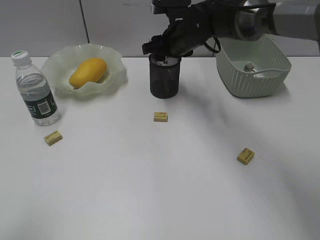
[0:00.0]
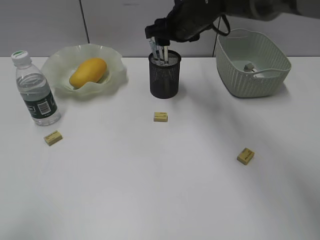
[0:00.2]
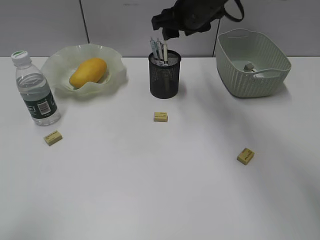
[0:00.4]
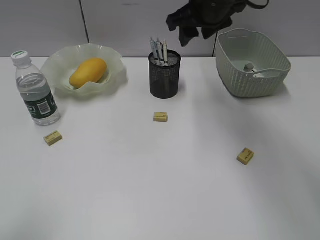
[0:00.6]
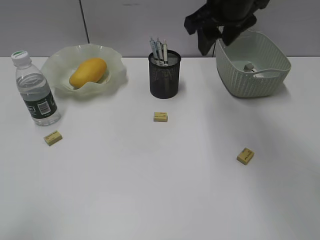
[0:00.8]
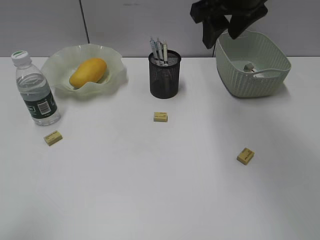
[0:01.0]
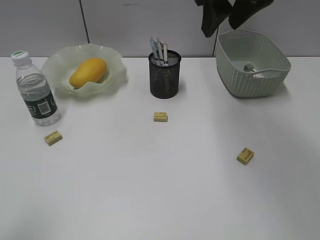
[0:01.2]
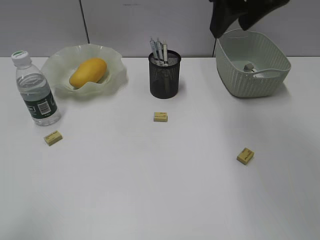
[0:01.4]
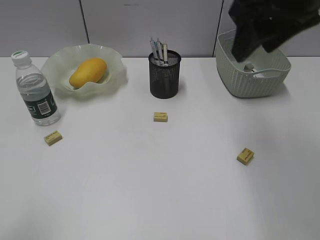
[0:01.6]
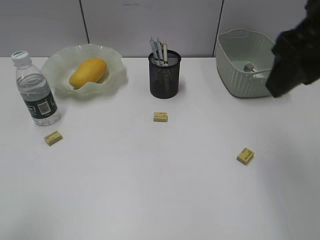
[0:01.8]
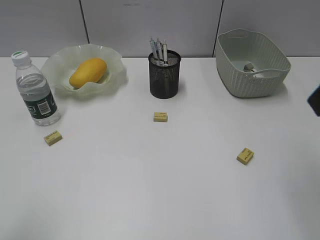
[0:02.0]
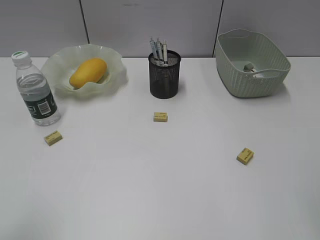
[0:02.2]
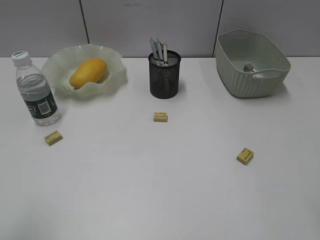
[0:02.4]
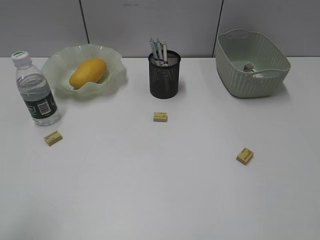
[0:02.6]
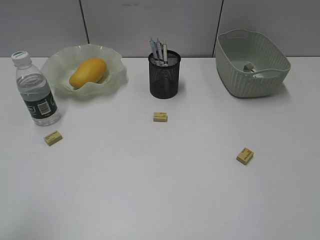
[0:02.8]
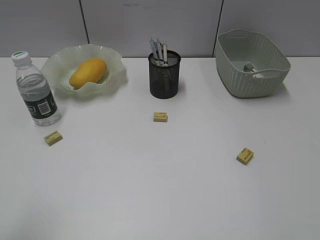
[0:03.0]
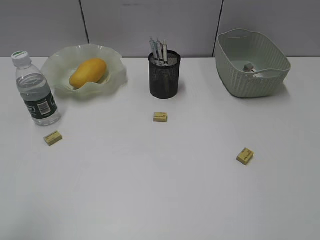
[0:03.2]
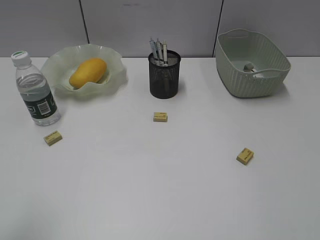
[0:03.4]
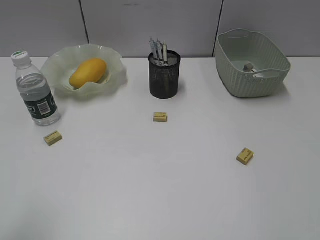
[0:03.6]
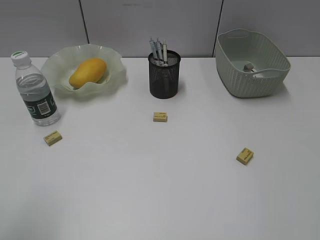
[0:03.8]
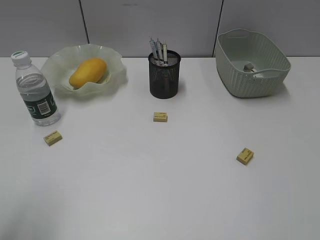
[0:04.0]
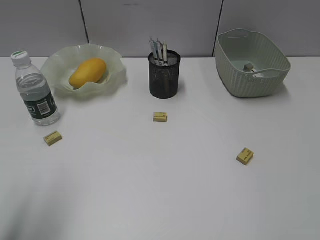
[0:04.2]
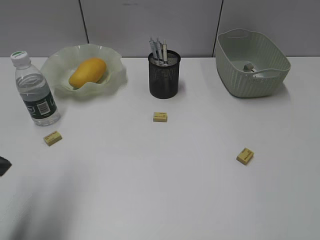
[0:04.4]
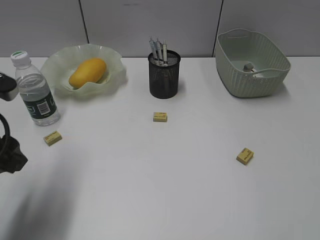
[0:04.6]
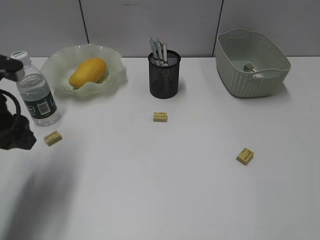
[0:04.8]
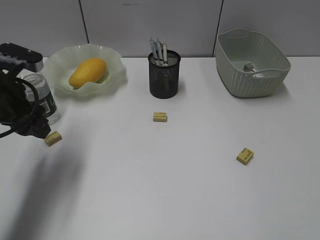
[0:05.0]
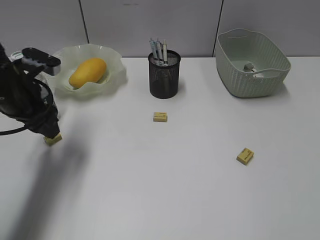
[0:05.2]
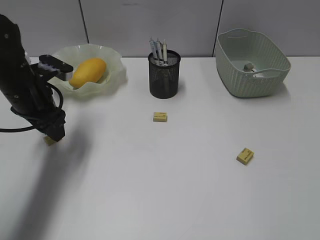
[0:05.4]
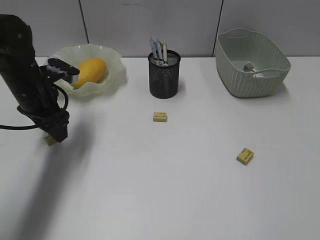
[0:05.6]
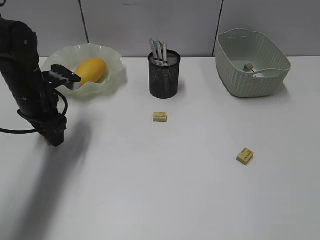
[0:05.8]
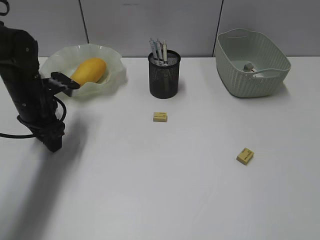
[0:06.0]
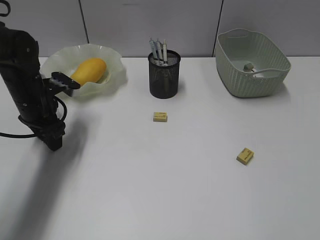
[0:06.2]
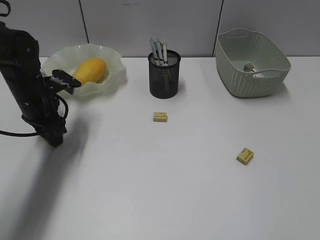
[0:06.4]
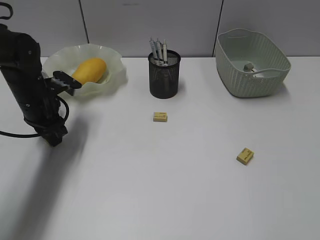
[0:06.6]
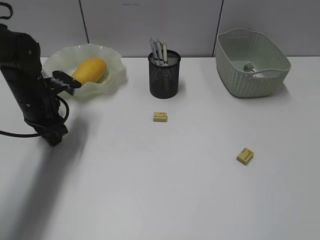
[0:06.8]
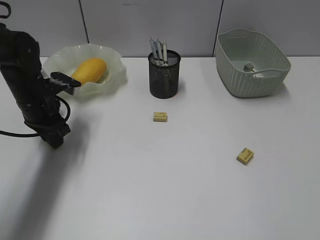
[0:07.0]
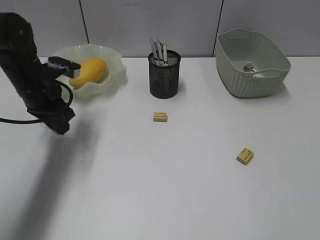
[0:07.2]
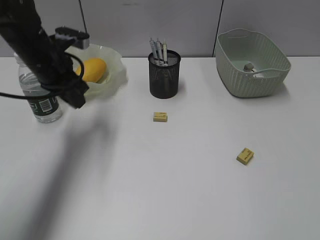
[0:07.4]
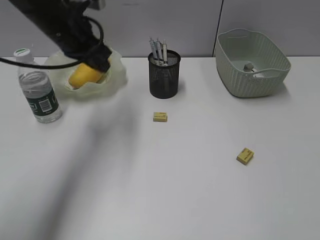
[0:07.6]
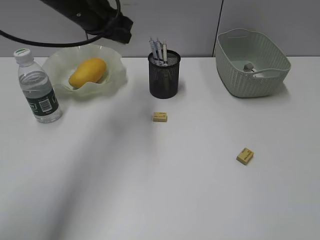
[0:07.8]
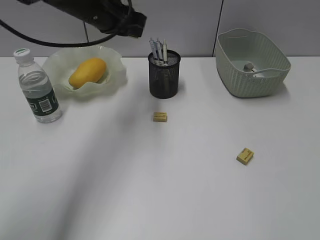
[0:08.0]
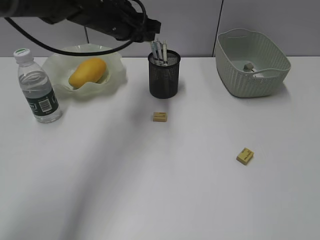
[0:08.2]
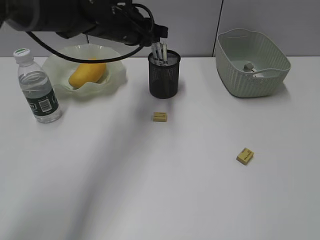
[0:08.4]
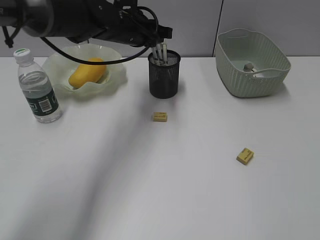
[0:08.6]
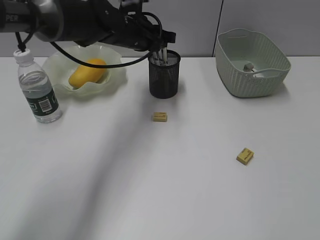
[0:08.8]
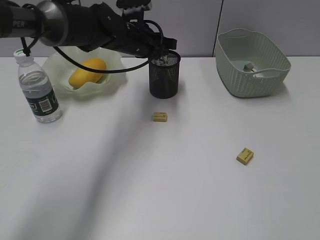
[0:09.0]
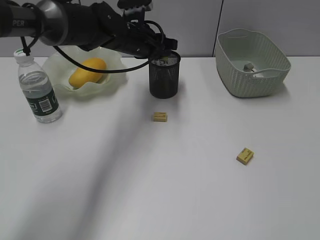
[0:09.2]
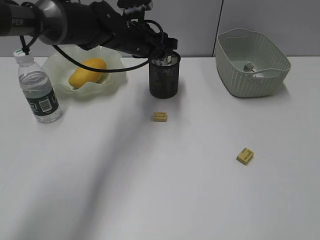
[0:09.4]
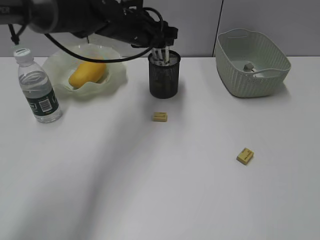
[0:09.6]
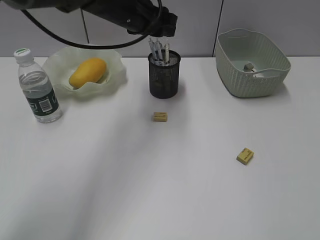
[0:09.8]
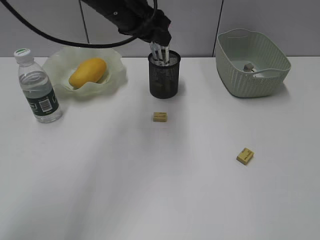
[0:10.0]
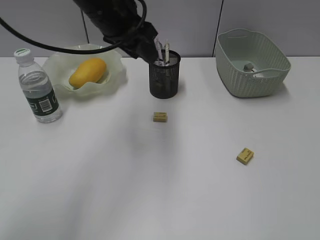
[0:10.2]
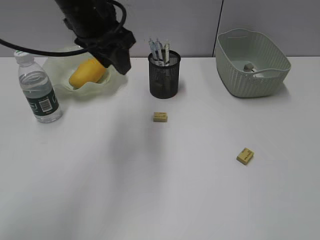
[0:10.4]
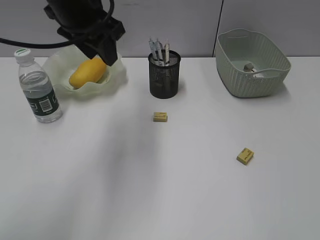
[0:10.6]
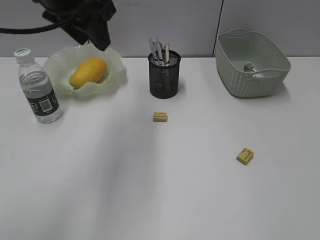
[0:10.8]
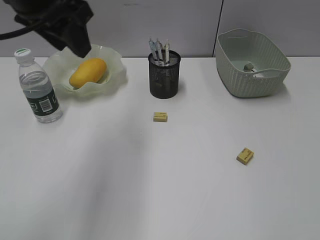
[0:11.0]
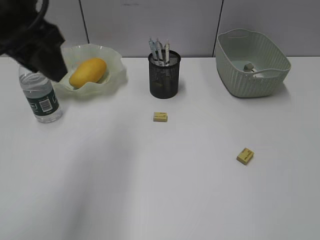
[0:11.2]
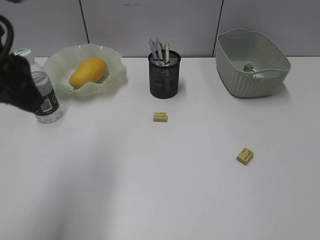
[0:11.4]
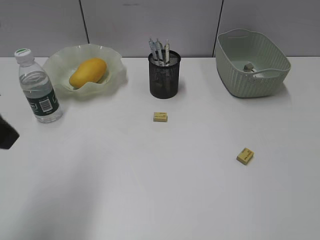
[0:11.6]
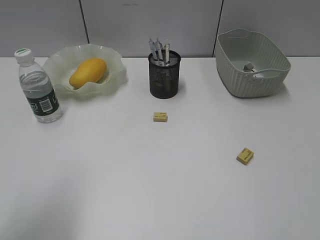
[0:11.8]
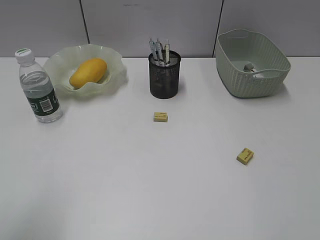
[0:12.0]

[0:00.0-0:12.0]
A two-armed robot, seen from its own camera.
Step, 0:00.0 to 0:06.8: Grasp the eraser with left gripper.
Step, 0:07.0 to 0:09.4: Place the eraser in pen holder with left gripper.
0:00.0 to 0:01.6: The right gripper goes some 30 cm backward, upward and to the right.
0:01.6 to 0:03.0: The right gripper heads backward and to the right, covering some 30 cm.
0:03.0 to 0:04.4: The left gripper goes some 10 cm forward.
0:04.4 to 0:06.0: The left gripper shifts about 25 cm forward and downward.
0:06.0 to 0:07.6: The left gripper shifts approximately 15 cm upward and to the right, and closes its fingers.
0:07.6 to 0:09.0: The left gripper moves to the right, downward and forward, some 15 cm.
0:09.0 to 0:10.4: The left gripper heads upward, backward and to the left, covering about 15 cm, and opens.
0:10.4 to 0:12.0: The left gripper shifts some 30 cm backward and to the left.

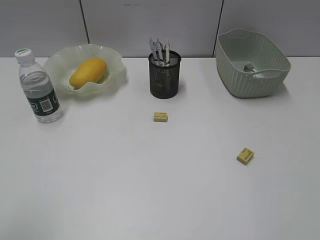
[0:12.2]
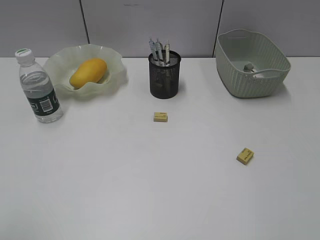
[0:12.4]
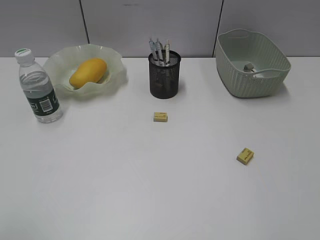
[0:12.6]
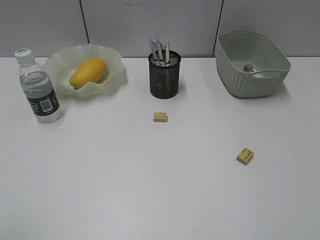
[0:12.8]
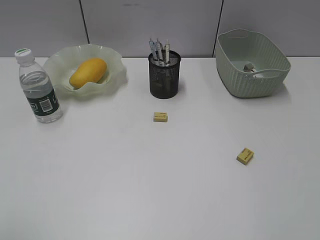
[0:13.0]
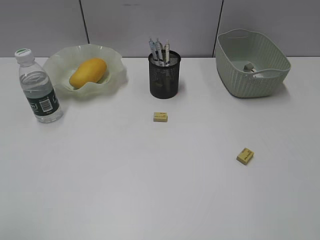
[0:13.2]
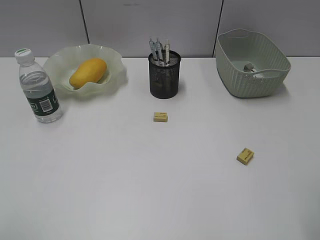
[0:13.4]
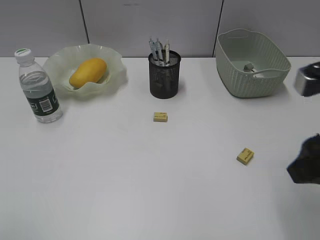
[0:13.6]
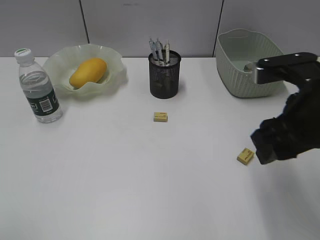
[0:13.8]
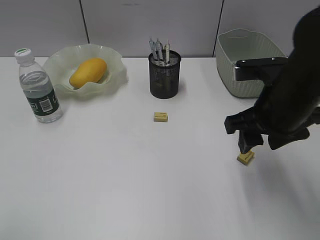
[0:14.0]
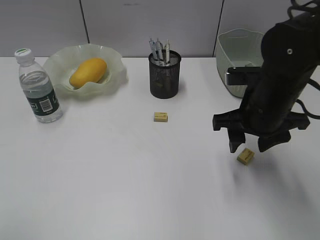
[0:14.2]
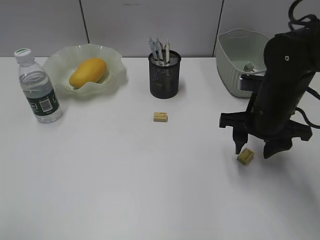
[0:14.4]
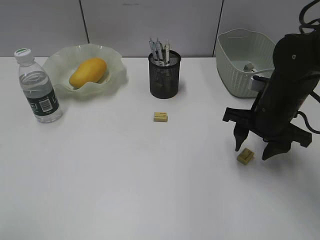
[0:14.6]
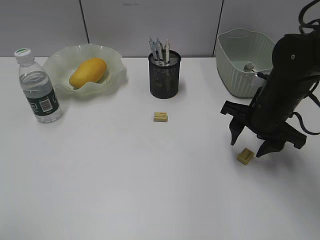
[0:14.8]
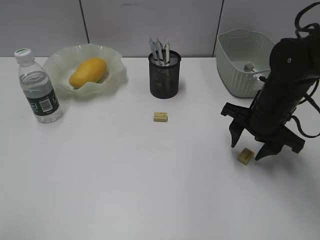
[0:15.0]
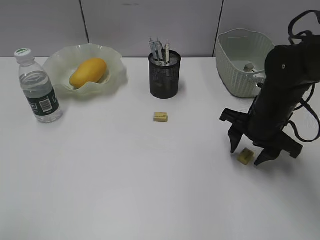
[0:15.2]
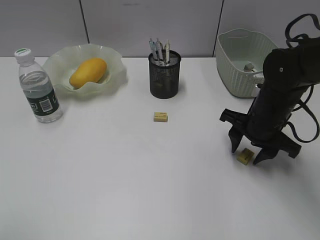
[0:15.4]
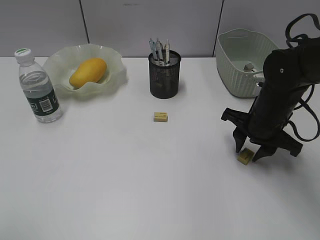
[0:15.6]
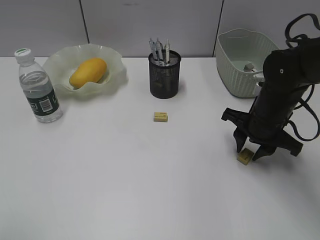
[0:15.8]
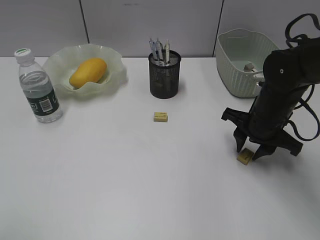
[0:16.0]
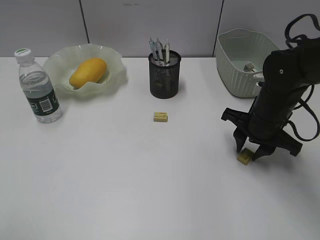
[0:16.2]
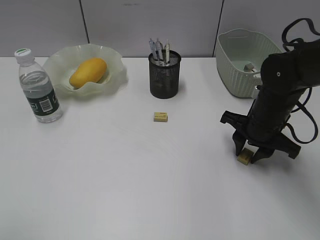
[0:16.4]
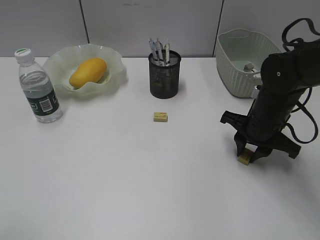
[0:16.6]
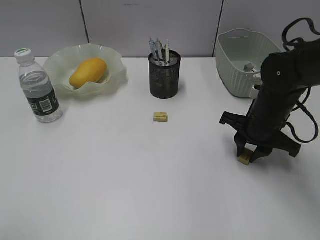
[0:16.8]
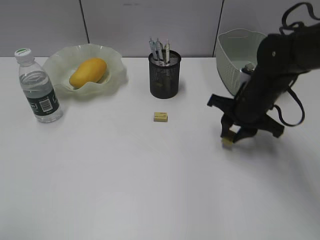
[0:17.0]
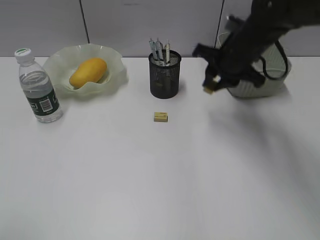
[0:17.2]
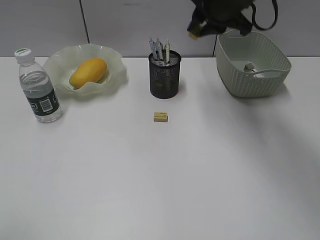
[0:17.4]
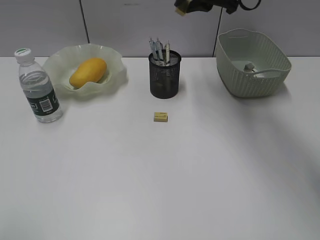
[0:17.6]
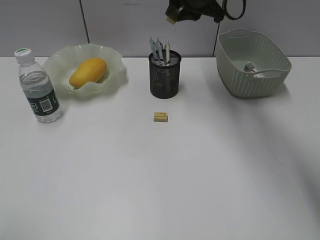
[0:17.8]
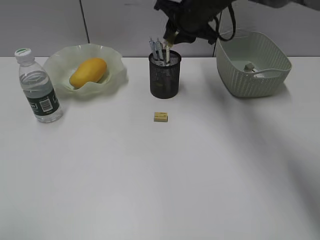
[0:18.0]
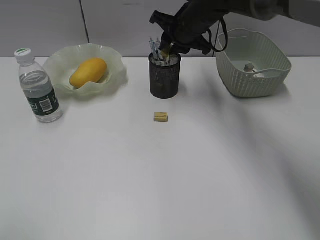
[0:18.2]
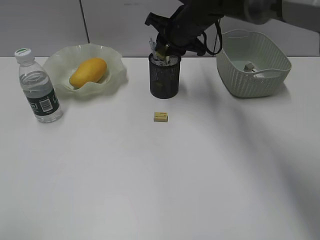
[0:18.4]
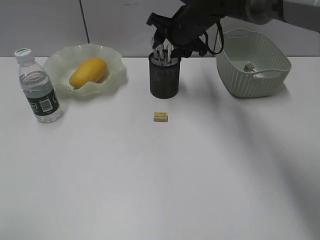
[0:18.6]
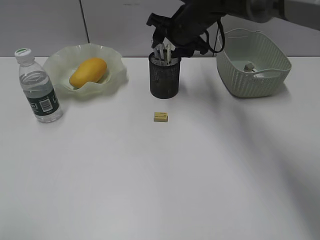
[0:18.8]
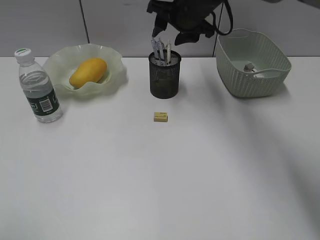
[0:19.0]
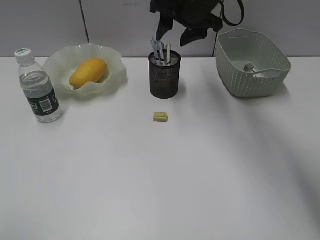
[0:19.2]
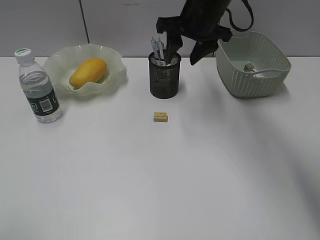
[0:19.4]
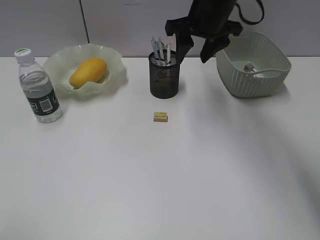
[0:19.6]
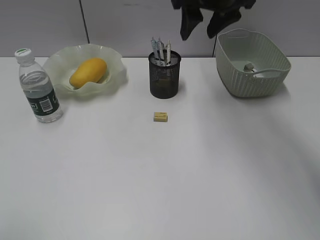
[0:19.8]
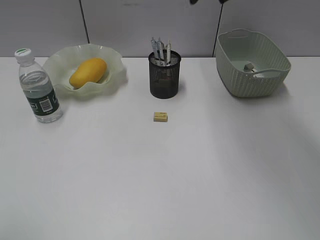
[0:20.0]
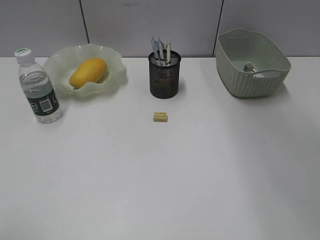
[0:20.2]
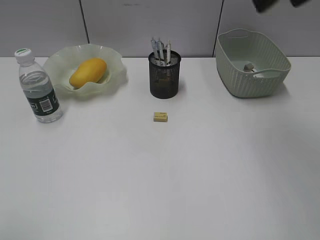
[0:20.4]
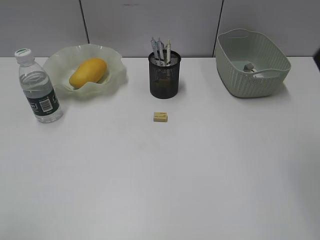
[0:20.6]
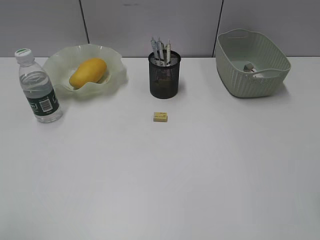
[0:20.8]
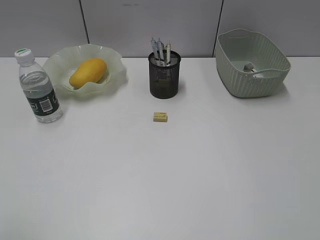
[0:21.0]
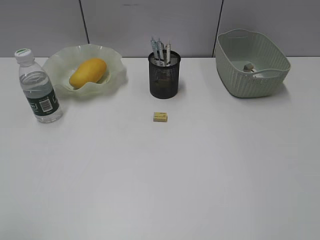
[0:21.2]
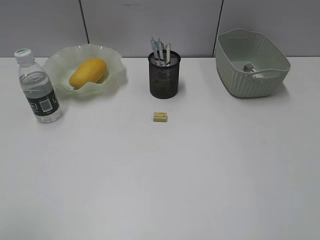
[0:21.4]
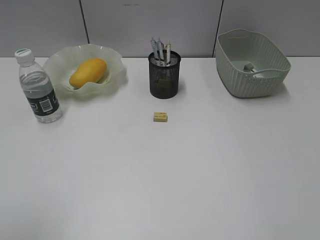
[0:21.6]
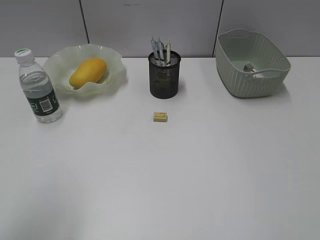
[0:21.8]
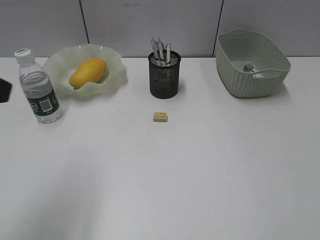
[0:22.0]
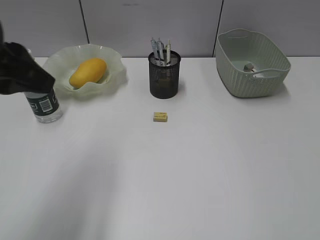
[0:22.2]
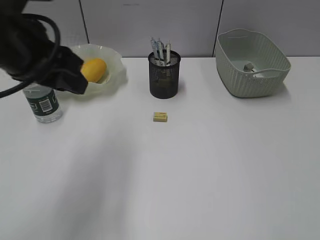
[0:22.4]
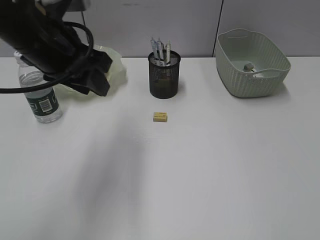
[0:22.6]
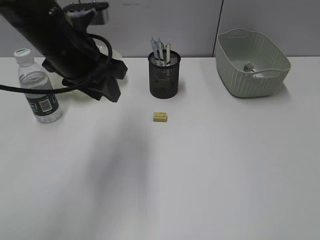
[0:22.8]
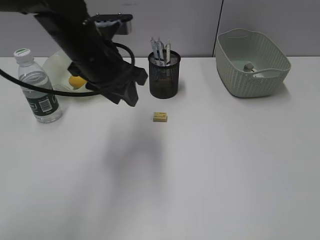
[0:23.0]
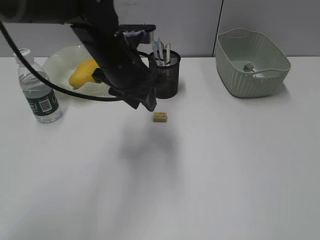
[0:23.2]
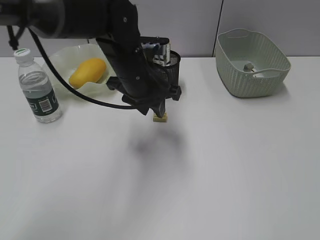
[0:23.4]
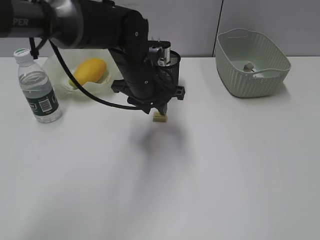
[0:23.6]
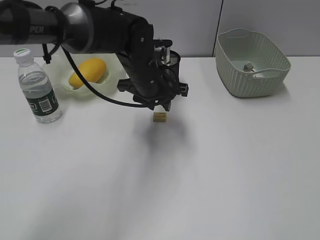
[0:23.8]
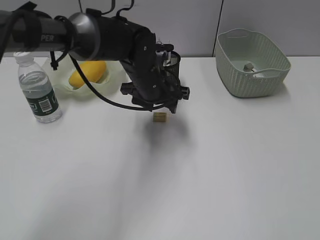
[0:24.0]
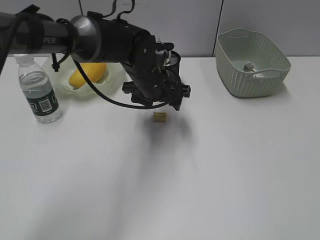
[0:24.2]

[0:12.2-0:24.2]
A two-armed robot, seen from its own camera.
Step, 0:12.2 to 0:16.6: Grasp the eraser with right gripper.
Step, 0:16.8 to 0:18.8: Place the eraser in pen holder with right gripper.
0:12.2 to 0:13.8: The right gripper travels forward and to the left by approximately 20 cm.
0:13.8 to 0:15.2: The right gripper moves downward and forward, roughly 15 cm.
0:15.2 to 0:16.6: The right gripper closes up.
0:16.6 to 0:18.2: The right gripper heads forward, to the left and upward, covering approximately 20 cm.
0:18.2 to 0:19.8: The right gripper travels upward and backward by about 15 cm, and opens its fingers.
0:19.8 to 0:21.2: The right gripper heads backward and to the right, covering about 50 cm.
0:21.2 to 0:22.6: The right gripper travels downward by about 5 cm, while the left gripper goes roughly 30 cm forward and to the right.
0:22.6 to 0:24.2: The left gripper travels downward, to the right and forward by some 20 cm, and opens its fingers.
